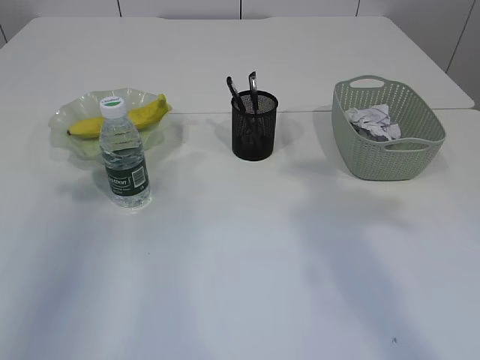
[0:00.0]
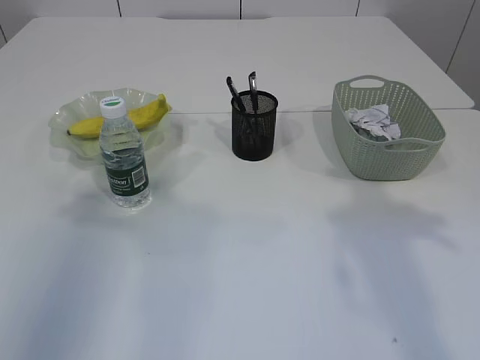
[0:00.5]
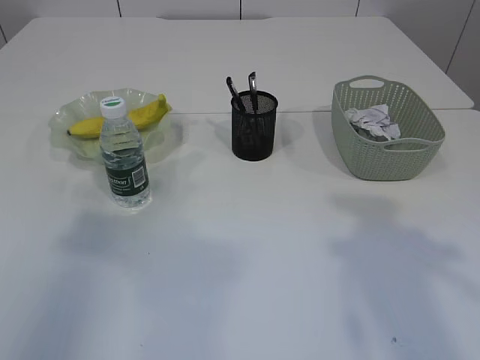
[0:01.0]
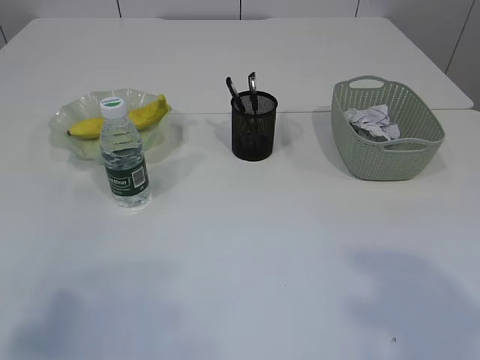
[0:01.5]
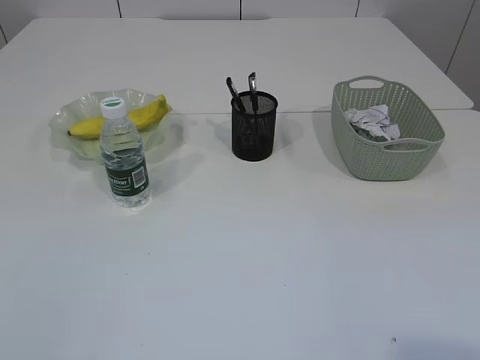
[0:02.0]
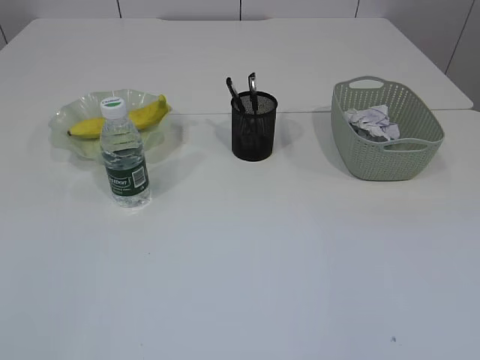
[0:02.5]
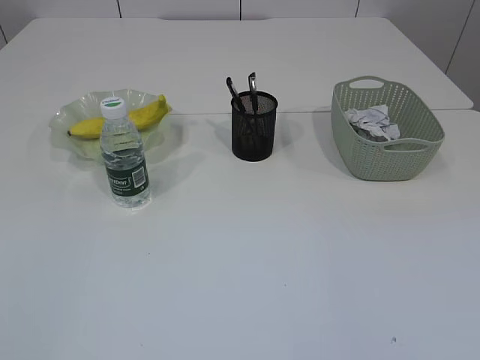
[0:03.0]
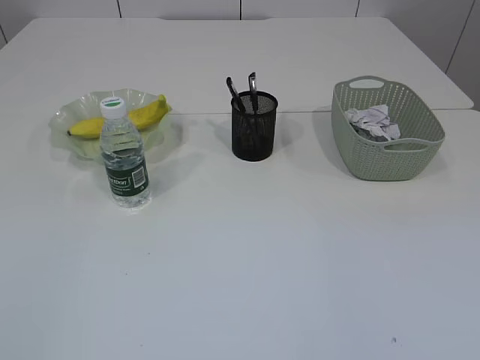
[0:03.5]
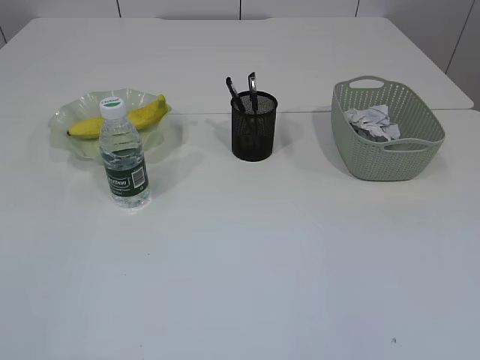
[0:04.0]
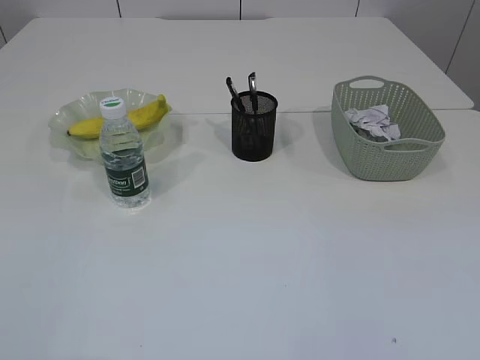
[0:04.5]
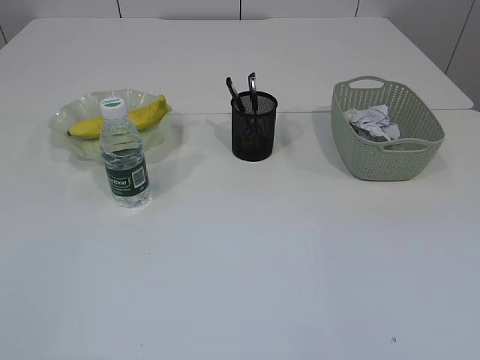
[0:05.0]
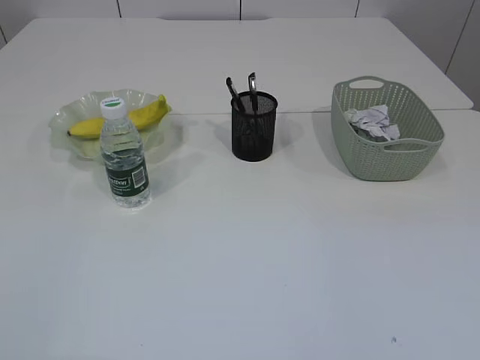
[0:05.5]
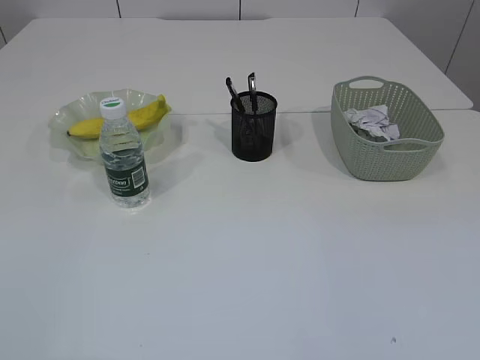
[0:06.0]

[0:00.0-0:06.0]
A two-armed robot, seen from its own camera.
0:00.0 to 0:02.0: The left gripper is displaced backward by roughly 35 cm.
0:04.0 to 0:06.0: The two grippers keep their place.
